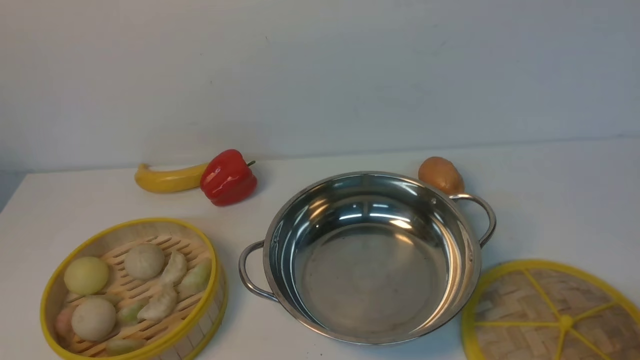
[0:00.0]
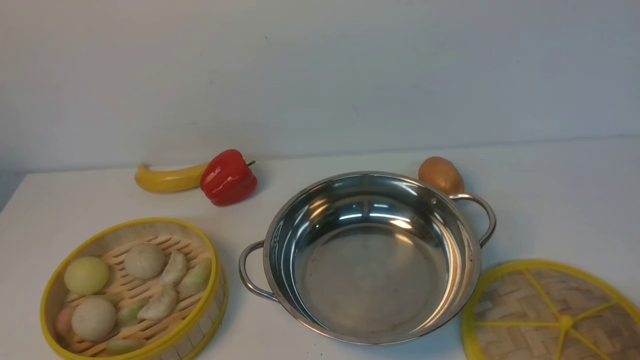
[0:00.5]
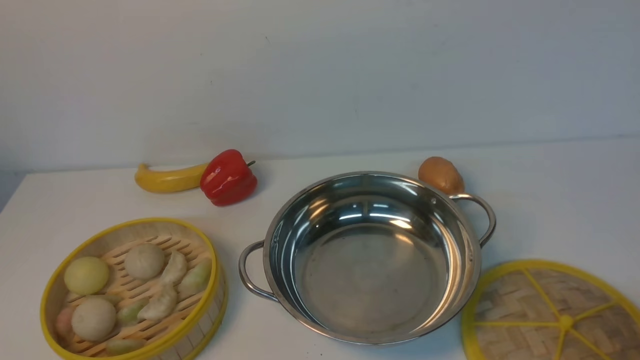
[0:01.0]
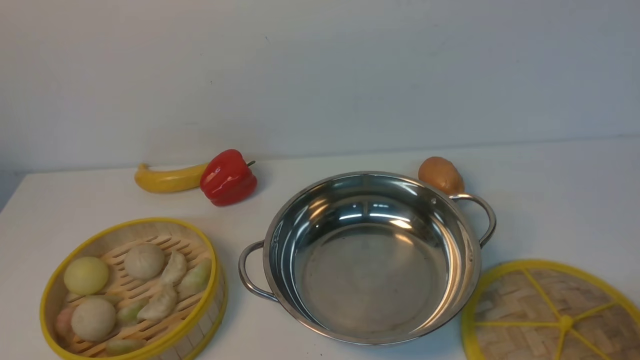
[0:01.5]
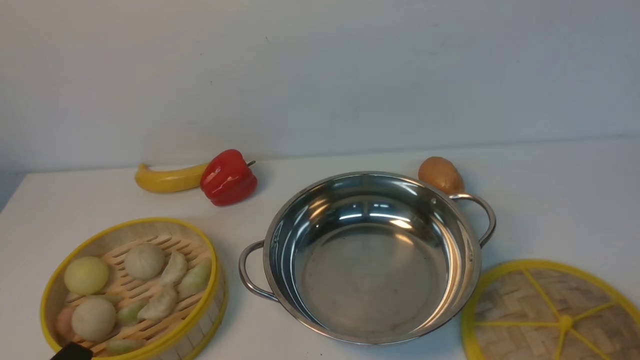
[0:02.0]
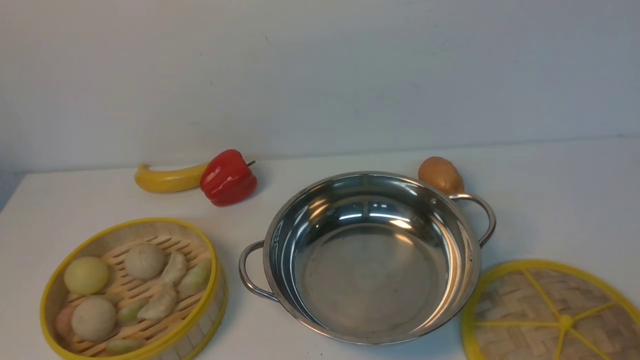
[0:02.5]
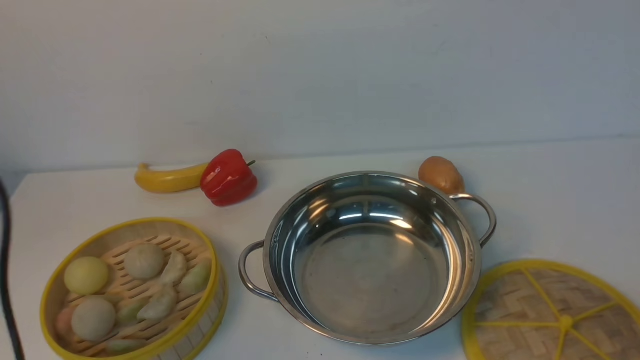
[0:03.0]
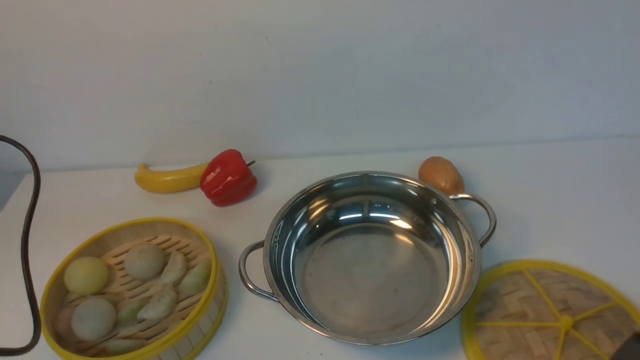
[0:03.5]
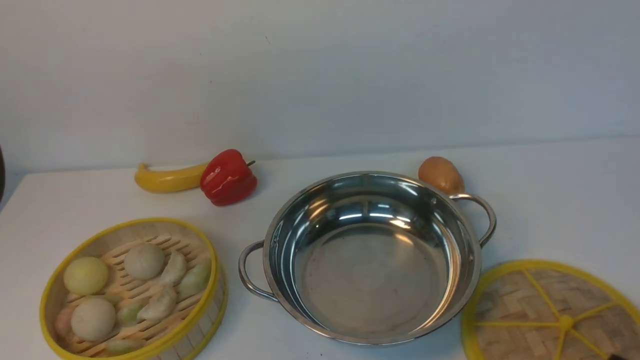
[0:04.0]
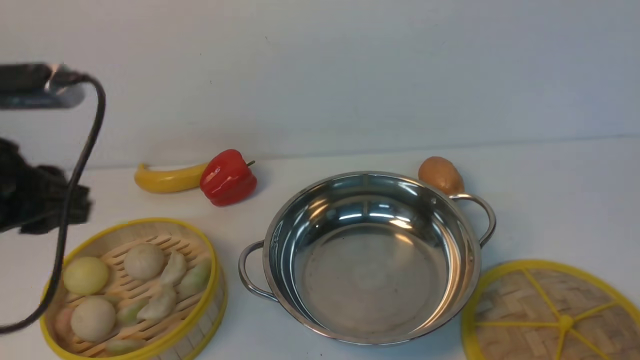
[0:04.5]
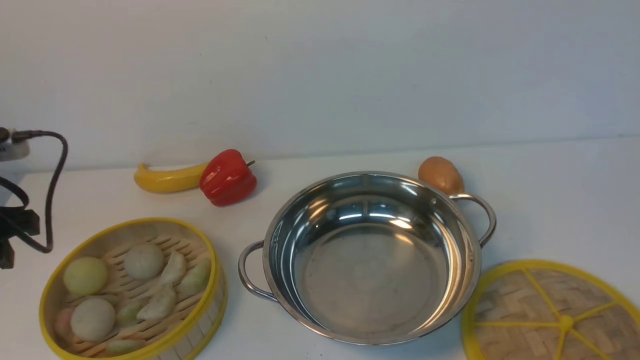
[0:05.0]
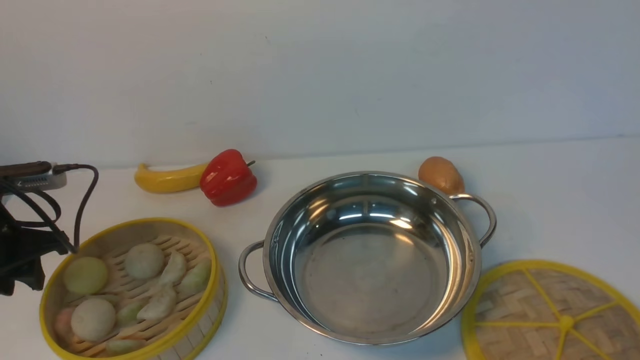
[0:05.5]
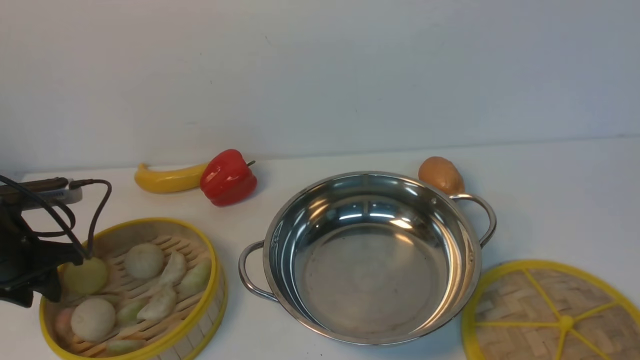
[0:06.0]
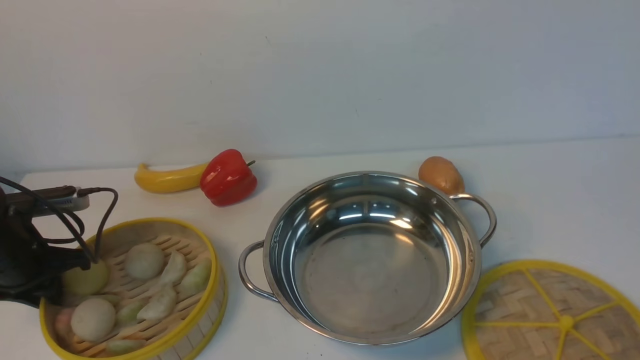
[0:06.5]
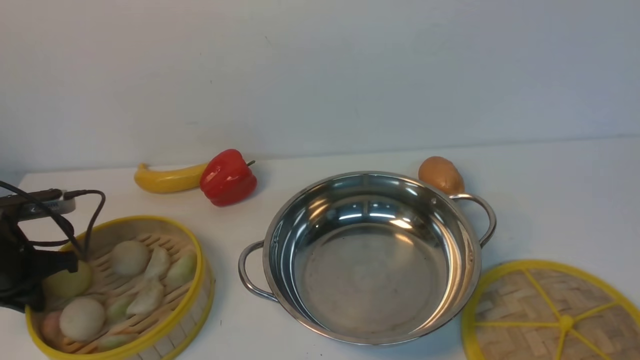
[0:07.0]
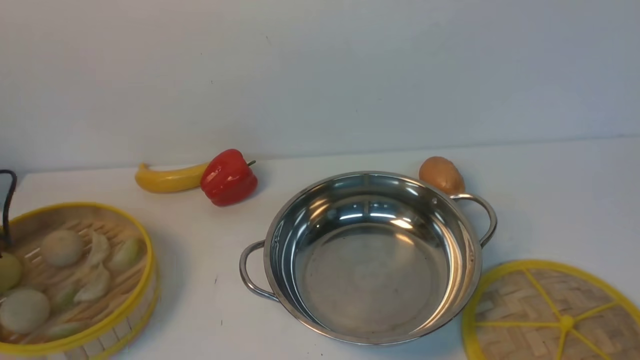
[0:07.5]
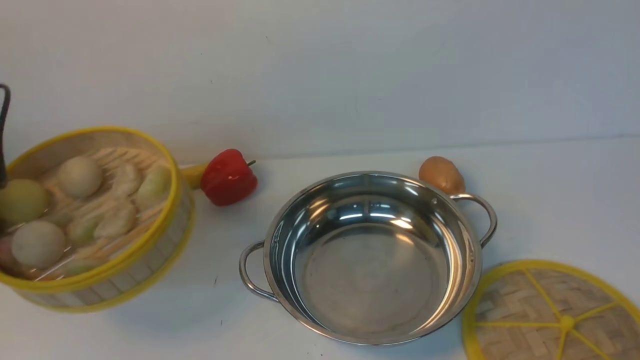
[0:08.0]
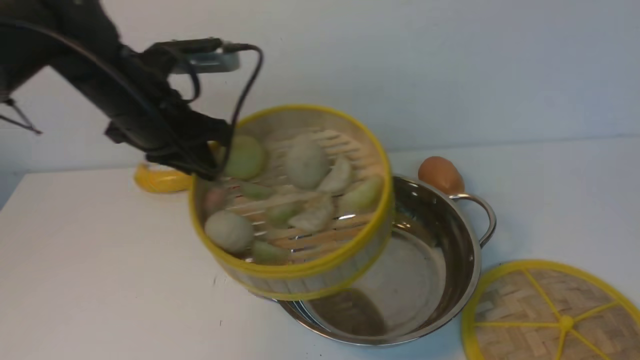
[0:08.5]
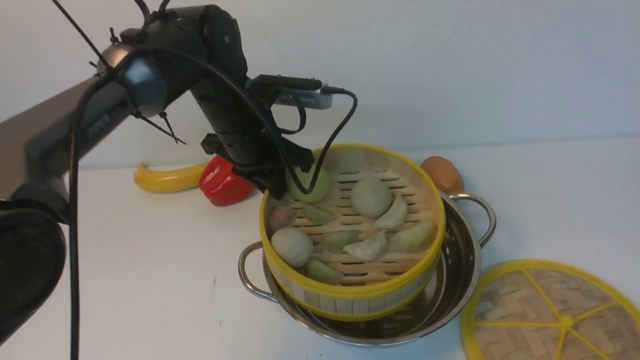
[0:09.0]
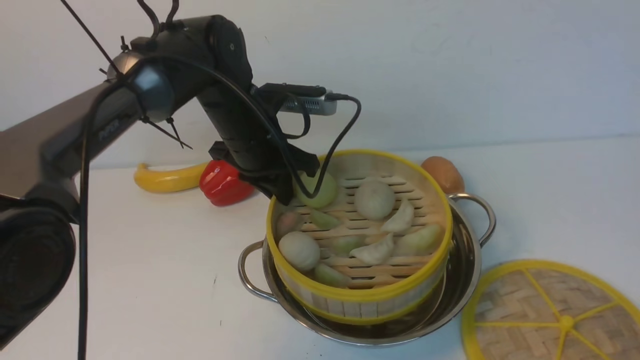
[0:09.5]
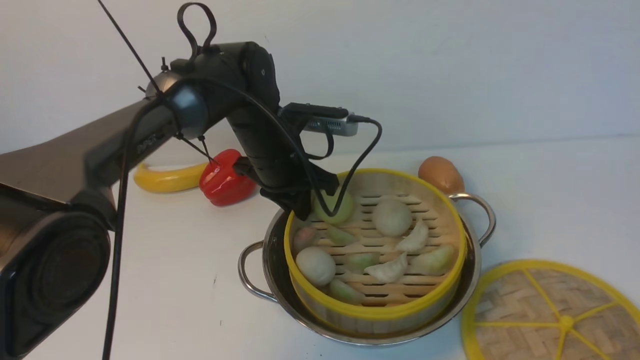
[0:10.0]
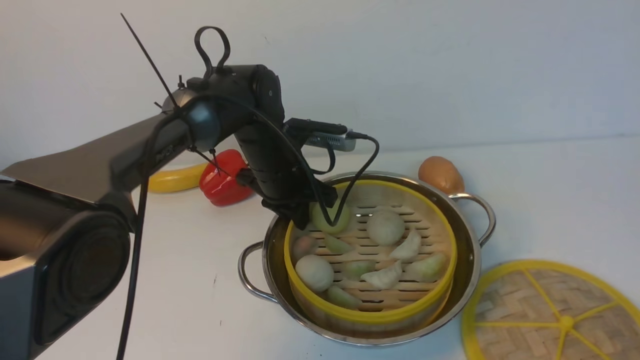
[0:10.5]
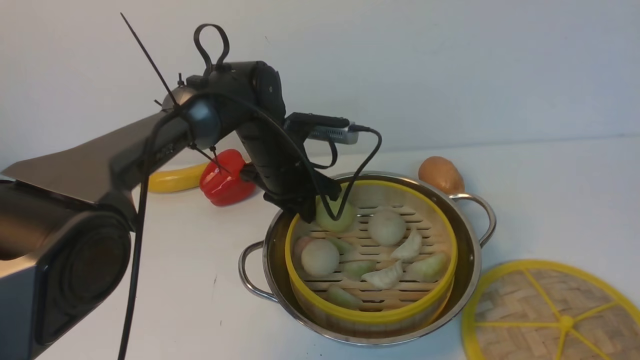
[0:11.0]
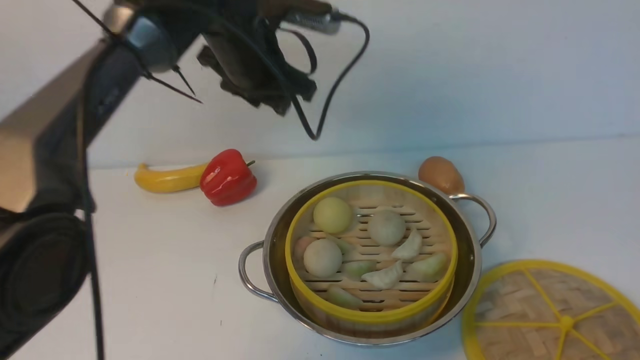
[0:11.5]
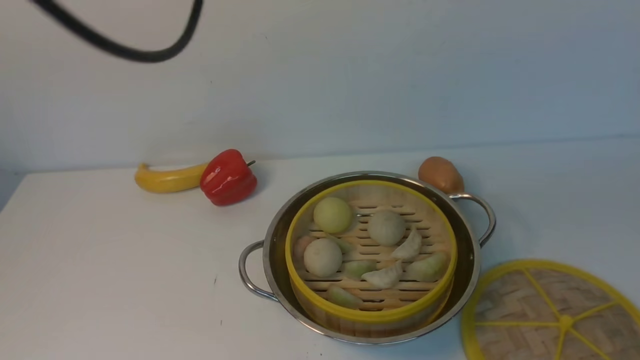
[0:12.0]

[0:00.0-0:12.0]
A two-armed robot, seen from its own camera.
Task of the whole recording: place the steamer in the pot on the white table, and put the lid on the steamer.
Step, 0:00.0 to 0:07.5: use the left arm to lift the steamer closest to it.
Step, 0:08.0 to 0:11.0: use the left arm to put the steamer into the iron steamer pot in the middle.
0:02.0 to 0:04.0: The right gripper changes place by approximately 5 cm.
0:04.0 to 0:06.0: The left gripper travels downward by approximately 25 cm, and opens.
0:06.0 to 0:08.0: The left gripper travels upward by approximately 10 cm, and closes up.
0:08.0 to 0:10.0: The left gripper moves to the right, about 30 cm.
0:10.0 to 0:12.0: The right gripper goes some 20 cm upward. The left gripper goes about 35 cm upward and backward, and opens and closes again.

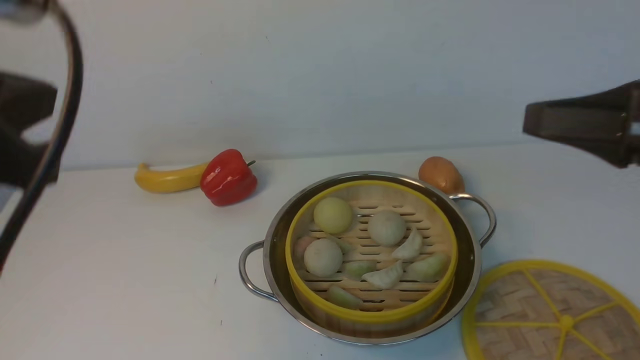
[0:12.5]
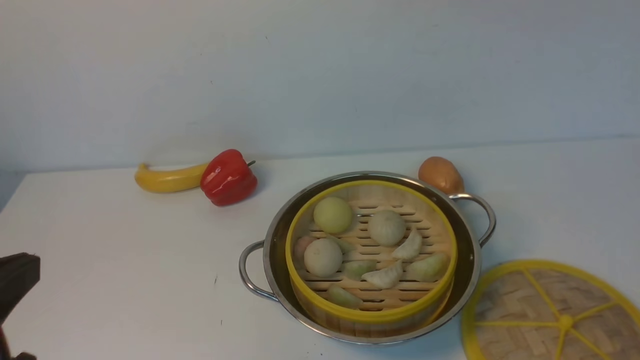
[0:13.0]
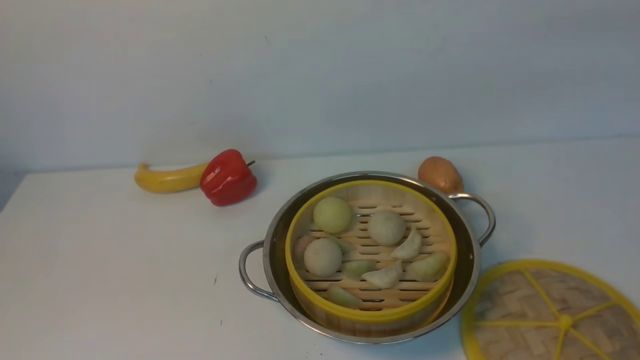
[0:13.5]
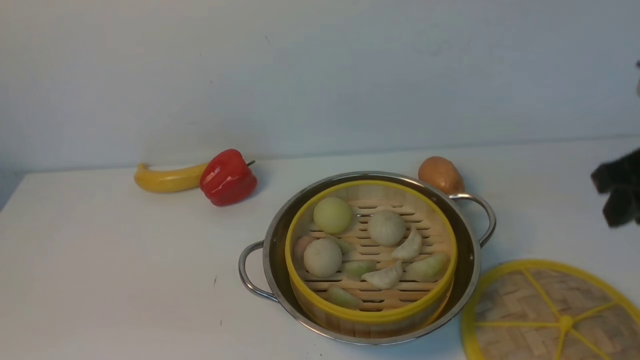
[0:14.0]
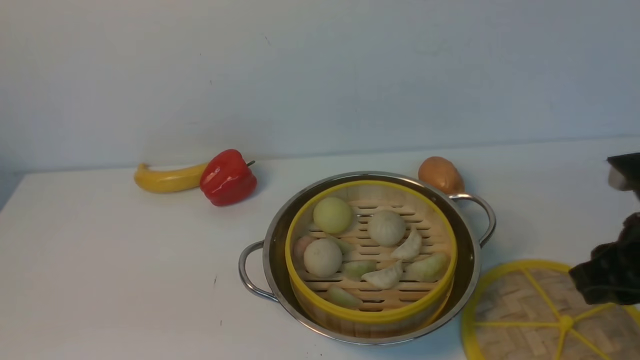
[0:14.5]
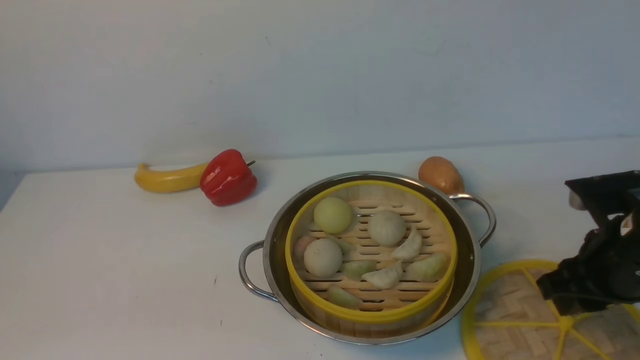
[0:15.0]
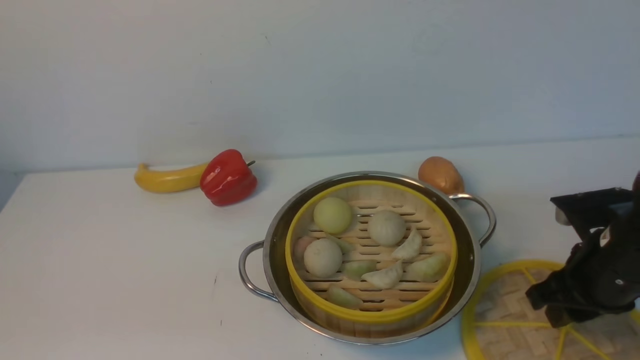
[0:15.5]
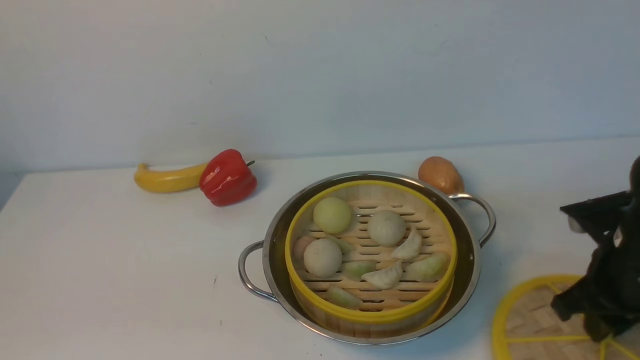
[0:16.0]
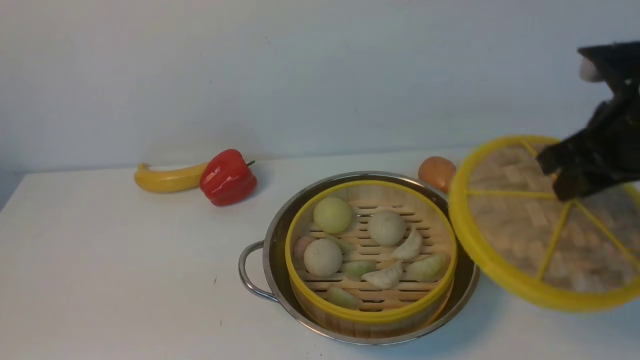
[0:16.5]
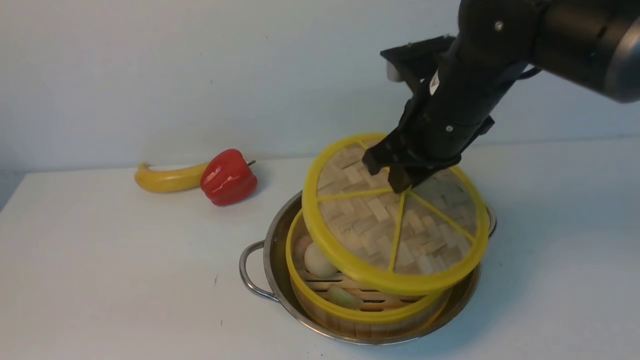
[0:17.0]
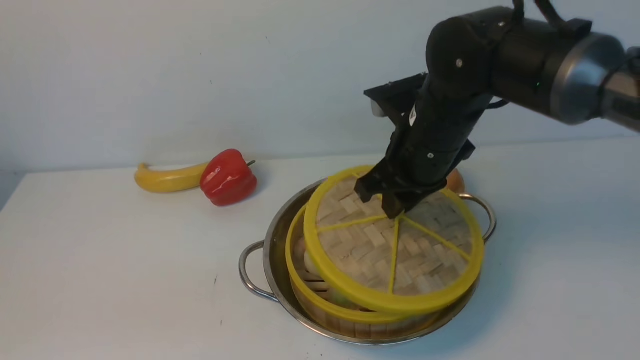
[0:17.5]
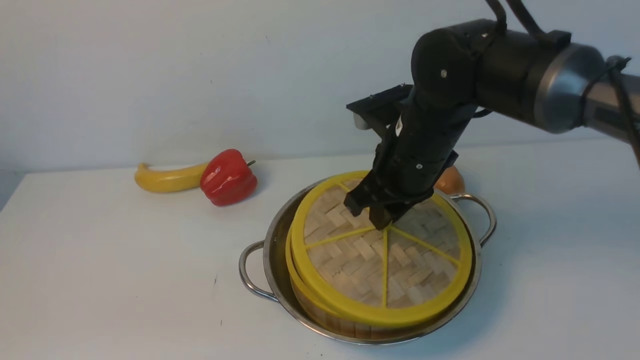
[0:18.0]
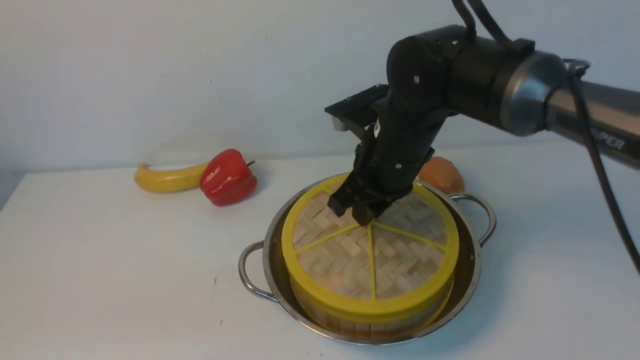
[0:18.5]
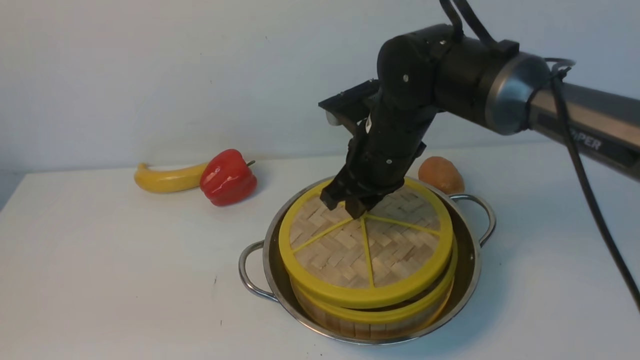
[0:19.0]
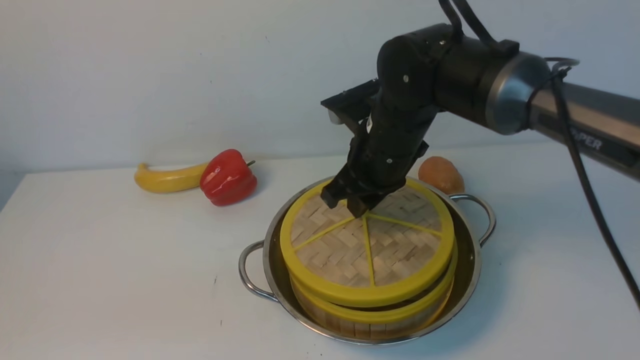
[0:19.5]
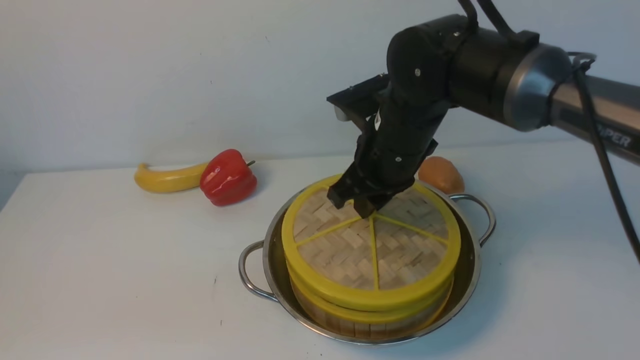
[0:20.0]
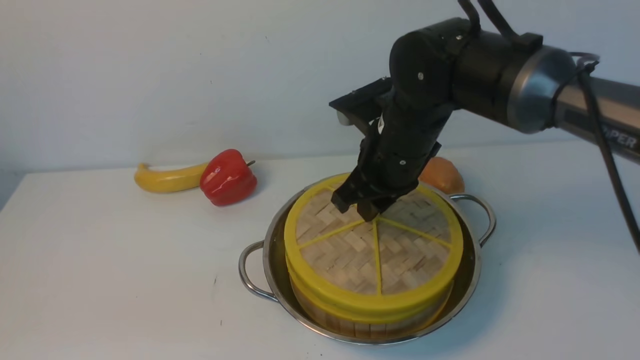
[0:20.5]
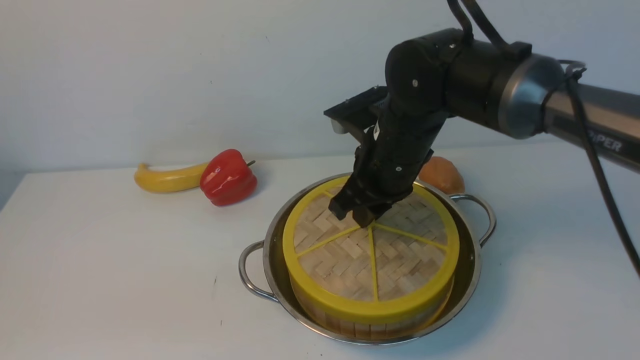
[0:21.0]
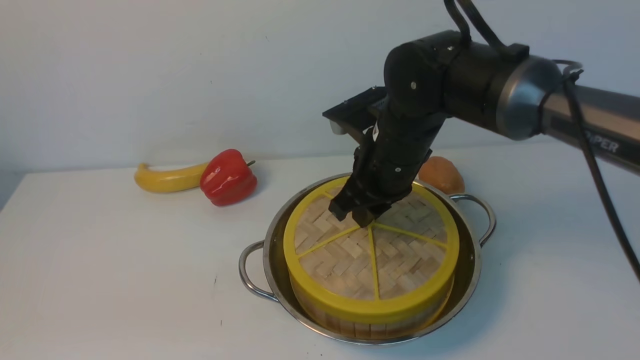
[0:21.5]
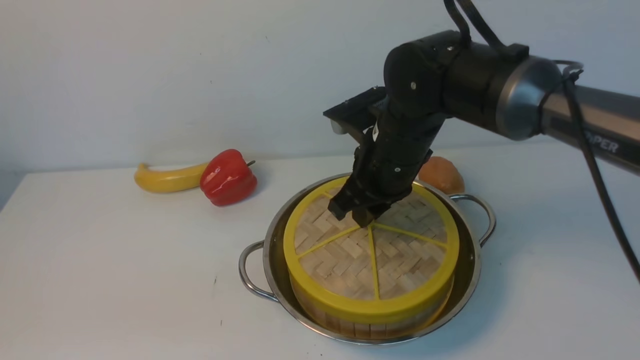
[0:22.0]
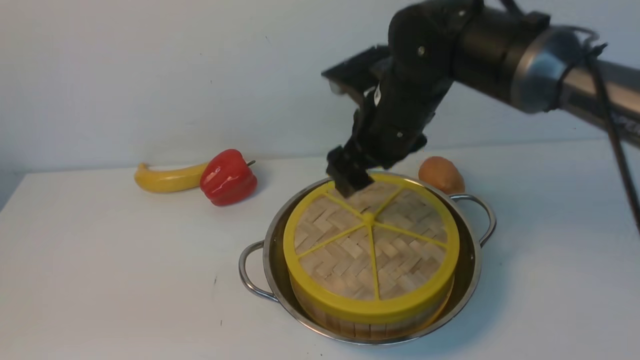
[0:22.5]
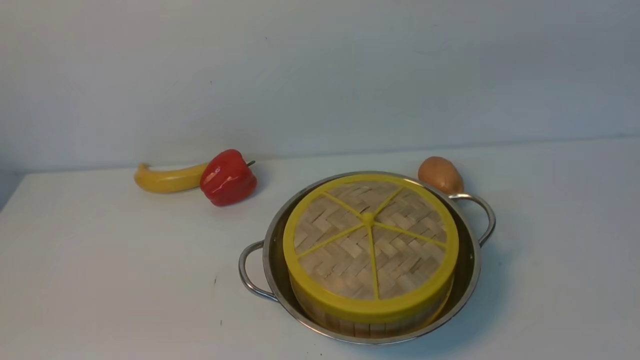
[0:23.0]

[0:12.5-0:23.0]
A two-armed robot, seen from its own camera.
Task of the whole recording: place the steamer in the pot on the white table, and put the lid on the steamer.
Step, 0:12.5 to 0:16.0: use the right arm to lift the lid of the steamer.
0:12.5 to 0:14.5: The left gripper moves downward and backward, some 20 cm. The right gripper heads downward, covering roughly 15 cm.
0:14.5 to 0:16.5: The right gripper moves forward and upward, approximately 10 cm, and closes its fingers.
0:16.5 to 0:19.0: The right gripper moves to the left, some 20 cm.
0:19.0 to 0:21.0: The grippers make only small movements.
0:21.0 to 0:23.0: The right gripper shifts some 35 cm upward, backward and to the right, and closes its fingers.
